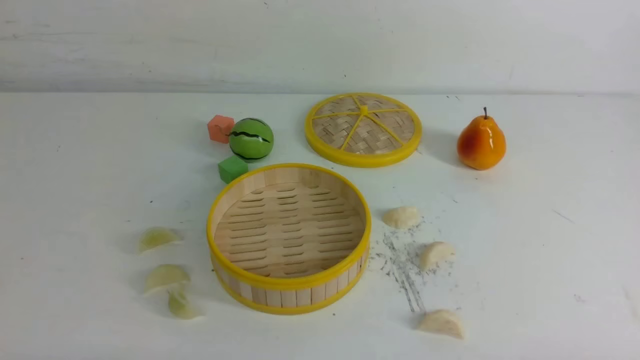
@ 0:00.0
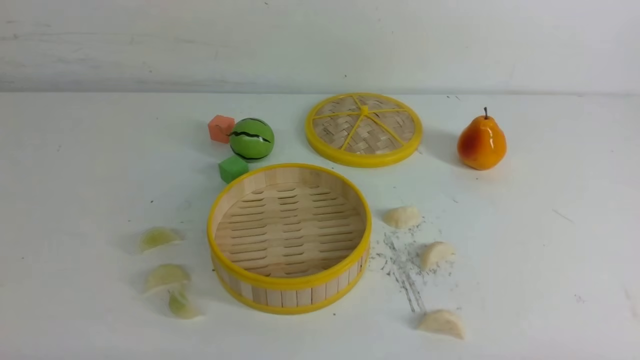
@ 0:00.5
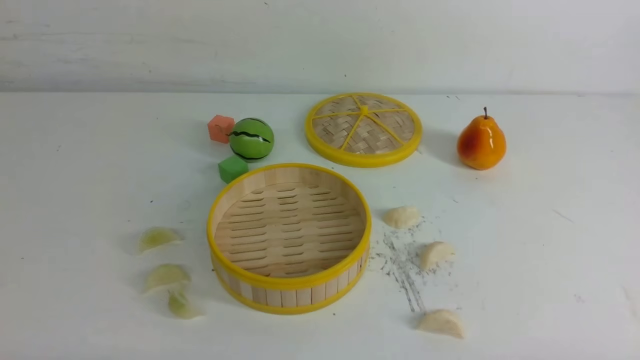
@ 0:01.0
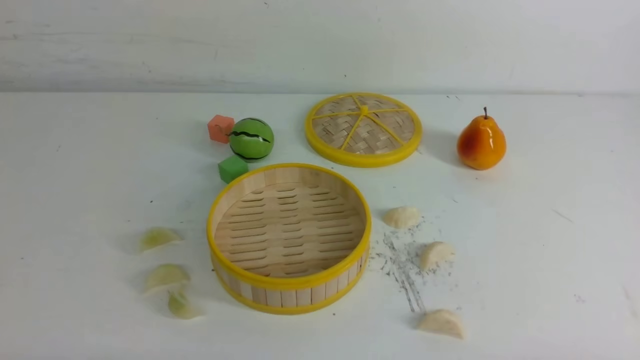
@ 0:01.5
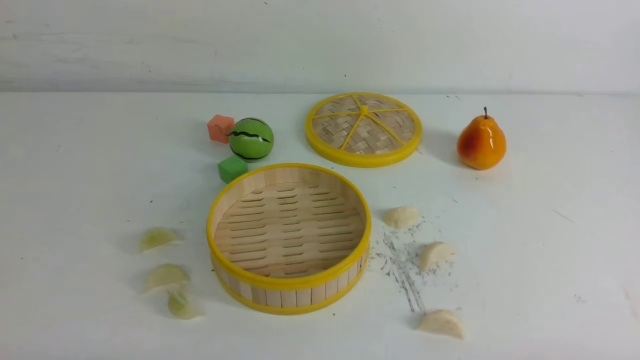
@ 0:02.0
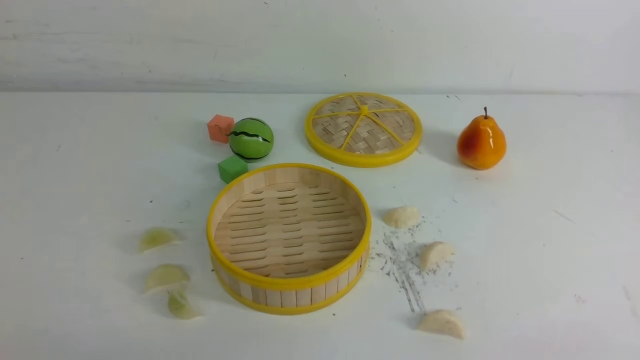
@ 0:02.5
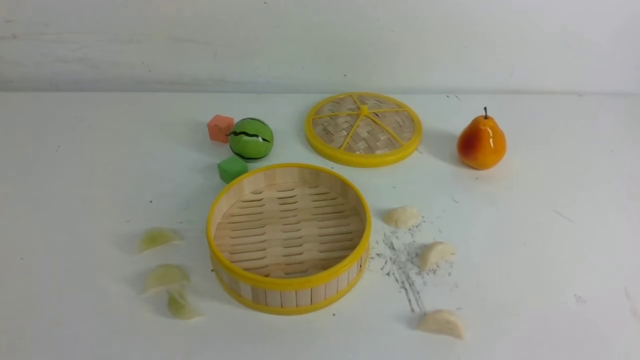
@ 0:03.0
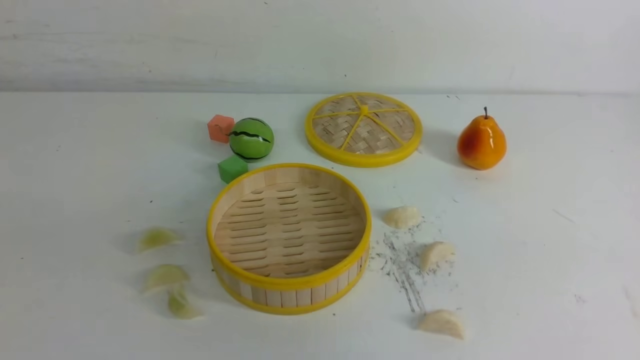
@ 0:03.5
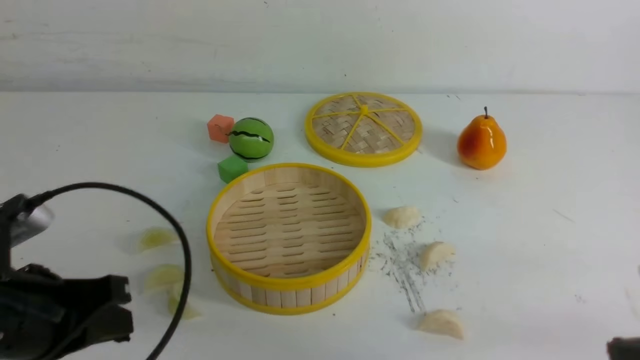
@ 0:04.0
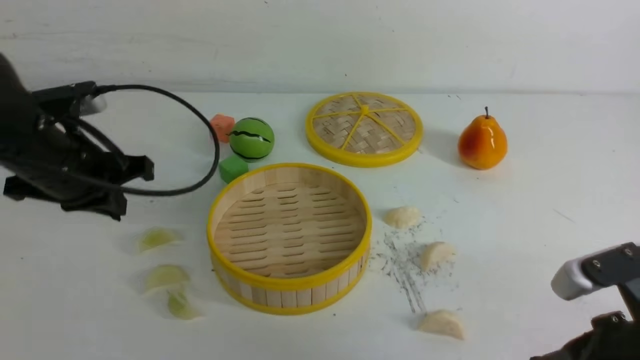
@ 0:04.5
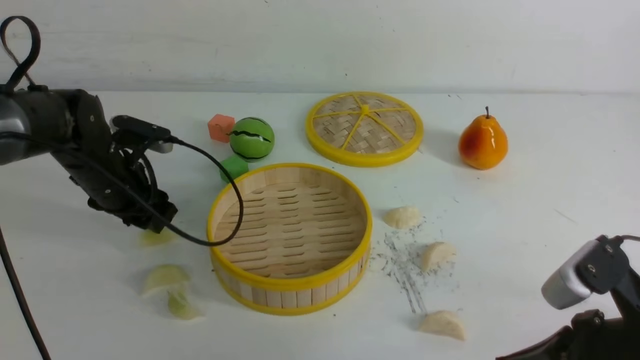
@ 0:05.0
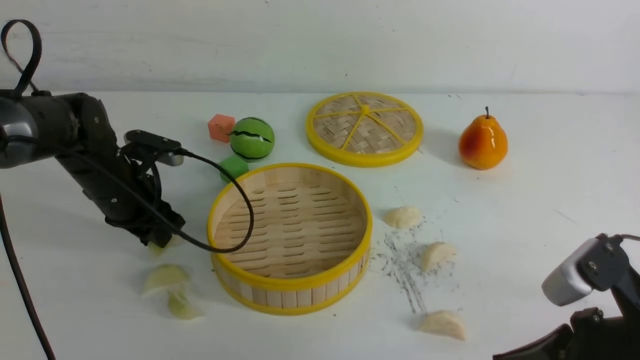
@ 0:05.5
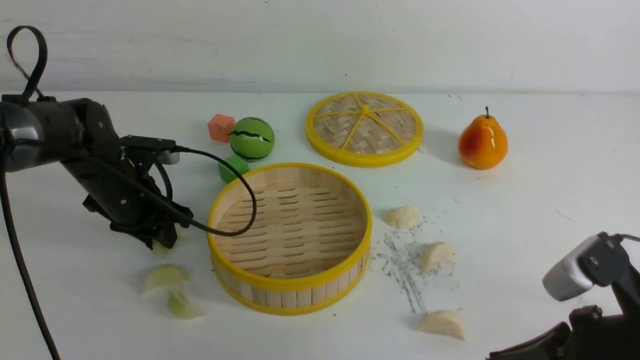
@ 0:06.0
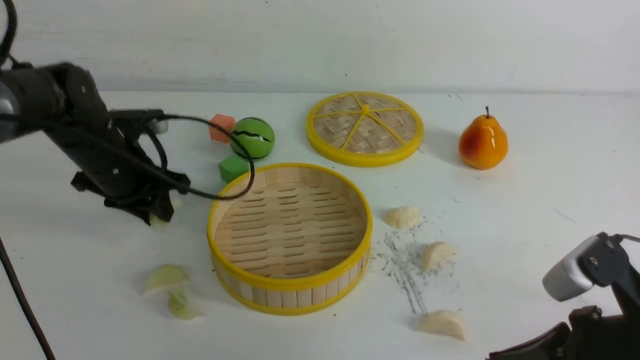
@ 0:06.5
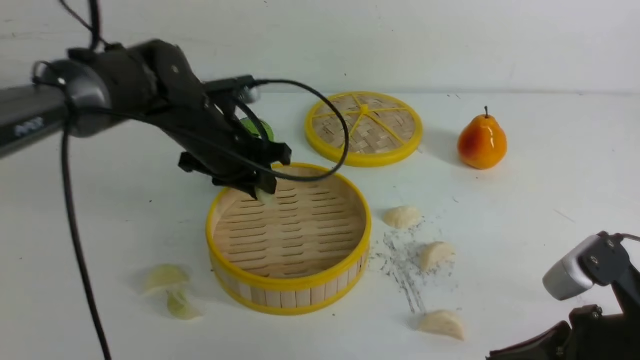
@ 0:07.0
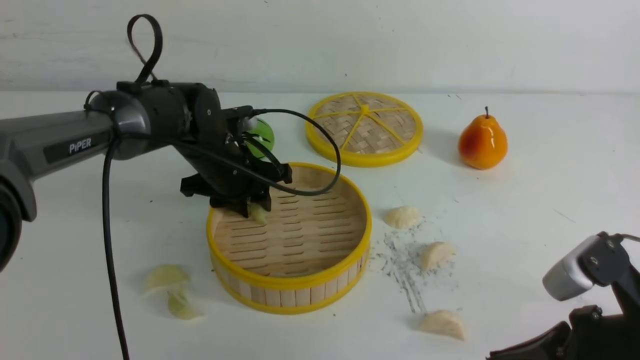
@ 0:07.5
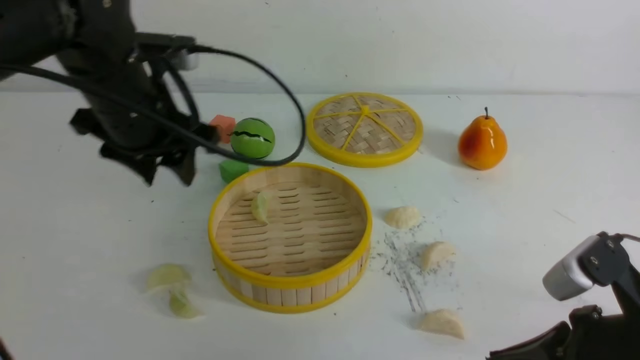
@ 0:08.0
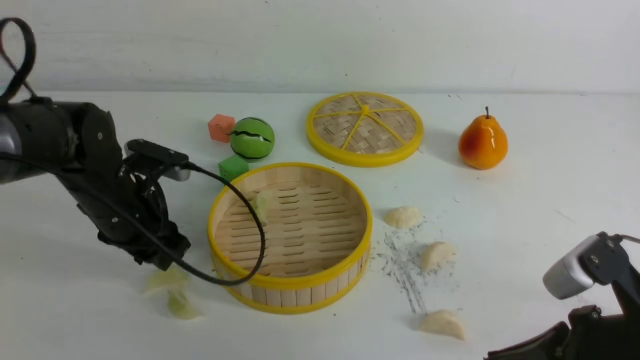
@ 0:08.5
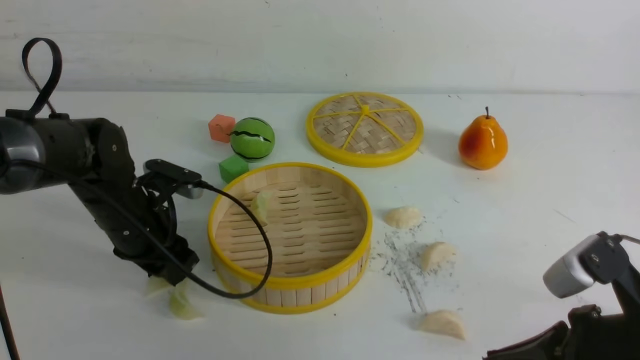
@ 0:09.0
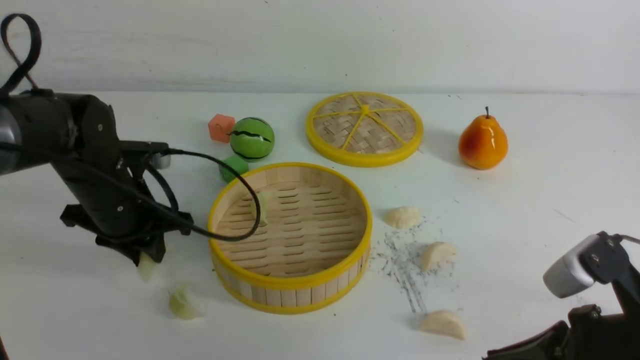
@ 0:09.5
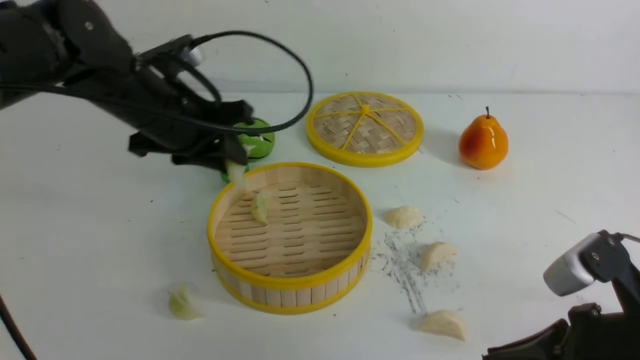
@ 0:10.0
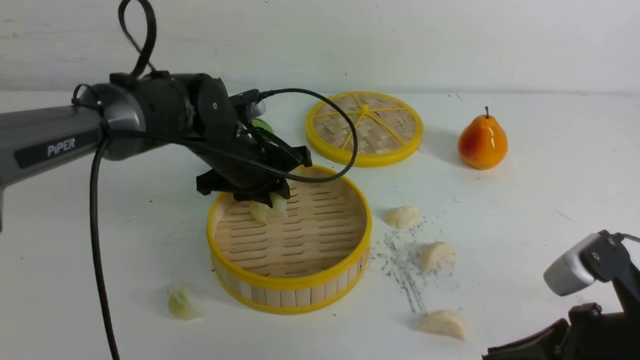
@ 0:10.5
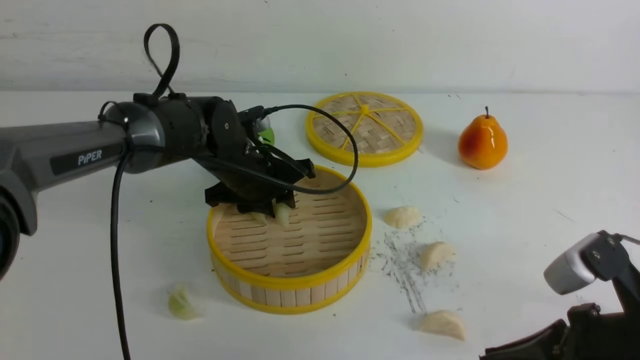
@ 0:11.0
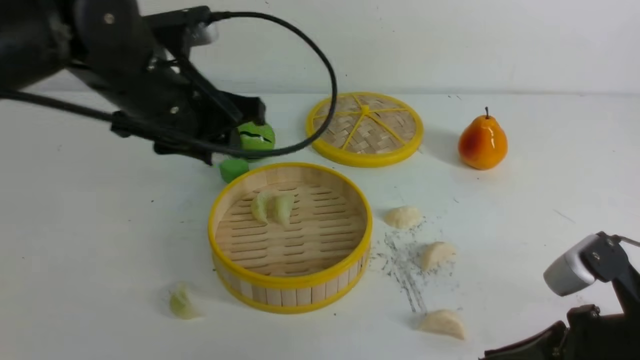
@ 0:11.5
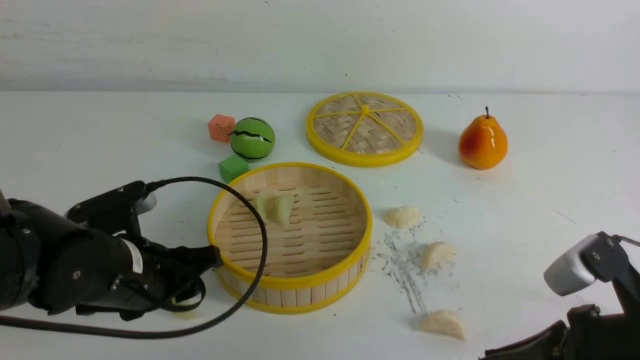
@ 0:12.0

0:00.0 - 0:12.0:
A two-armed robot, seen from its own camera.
Task of the whole recording: put the dumplings into the steamer on the white table.
Step, 0:00.0 - 0:06.0: use the left arm to grab a dumpling.
Step, 0:07.0 - 0:07.5: use the left arm to put the dumpling into the steamer.
Step, 0:08.0 - 0:09.0: use the left arm to grab a dumpling.
Step, 0:09.5 - 0:11.0: use the left arm to put the dumpling into the steamer.
0:02.0 - 0:04.0: Both grippers move forward and upward, approximately 15 cm. The right gripper closes, while the left gripper closes up.
0:04.0 - 0:06.0: The right gripper ends up about 5 cm from where it was. The left gripper is displaced forward and downward by roughly 25 cm, and opens up.
0:06.0 - 0:08.0: The left gripper is displaced upward and to the right by about 15 cm, and opens its fingers.
0:08.0 - 0:10.0: The left gripper reaches some 10 cm downward, then returns, and closes up.
0:10.0 - 0:12.0: The left gripper is displaced backward and downward by about 15 cm, and opens up.

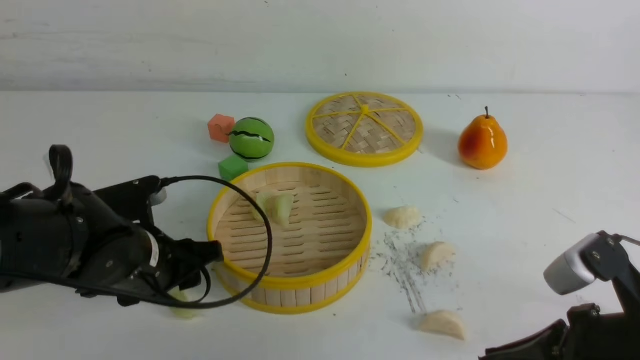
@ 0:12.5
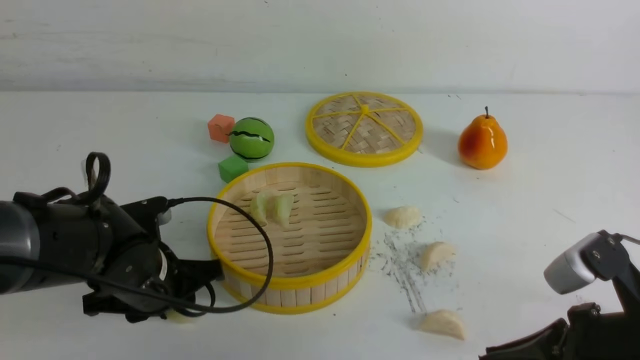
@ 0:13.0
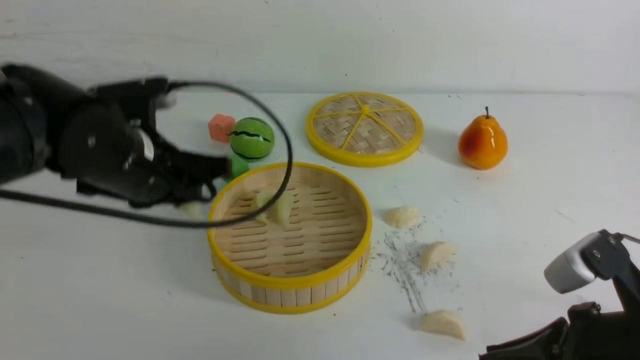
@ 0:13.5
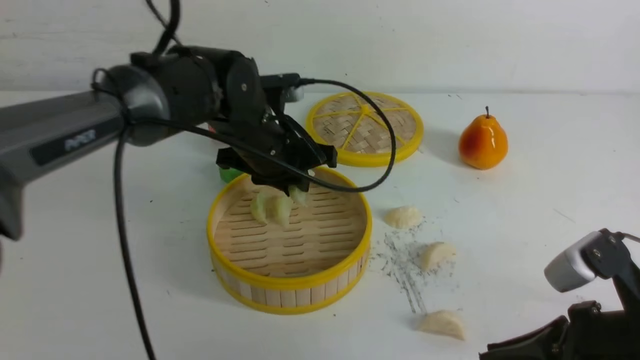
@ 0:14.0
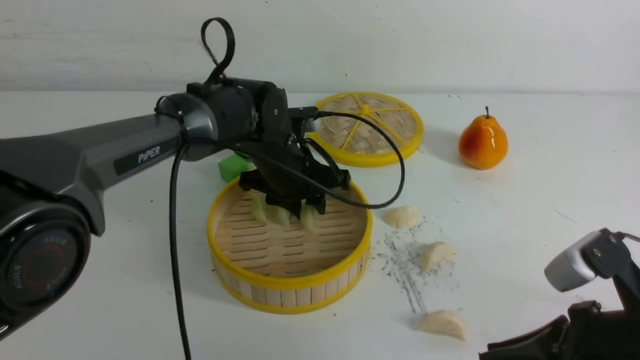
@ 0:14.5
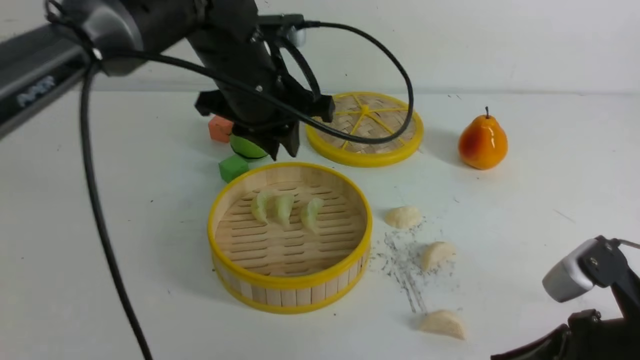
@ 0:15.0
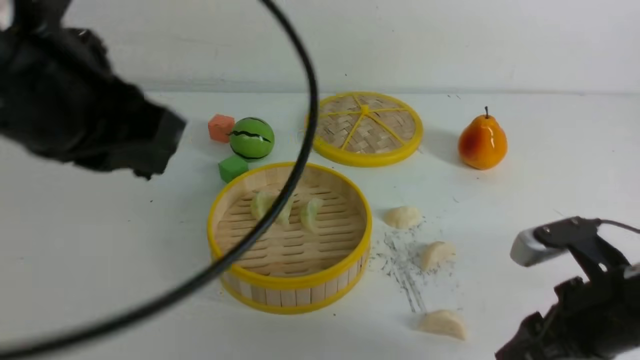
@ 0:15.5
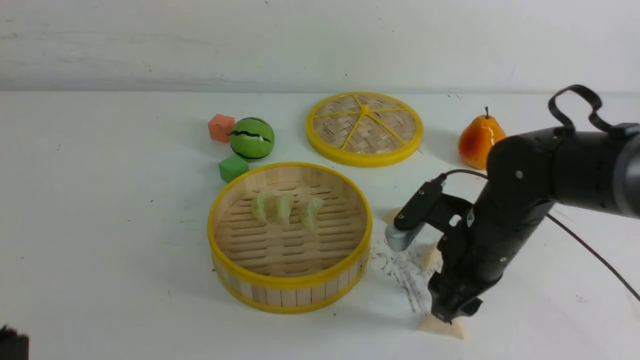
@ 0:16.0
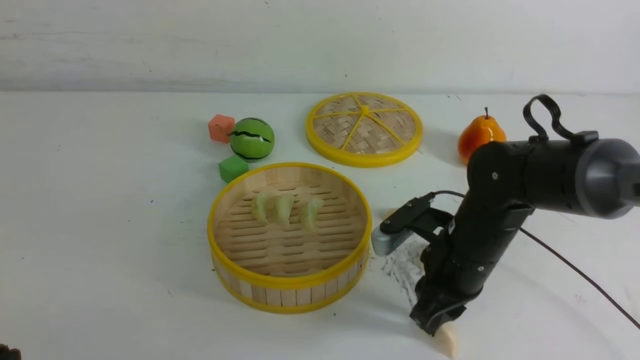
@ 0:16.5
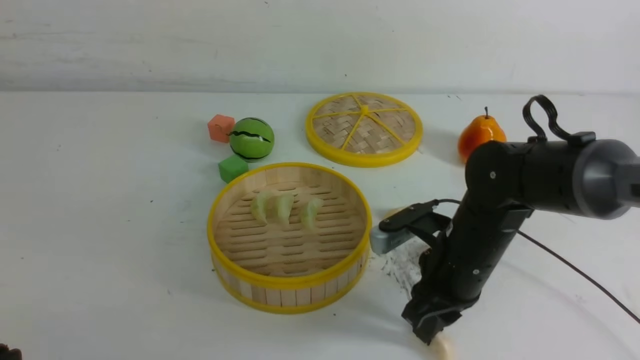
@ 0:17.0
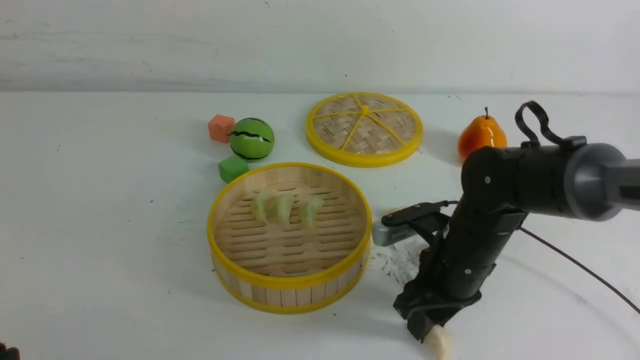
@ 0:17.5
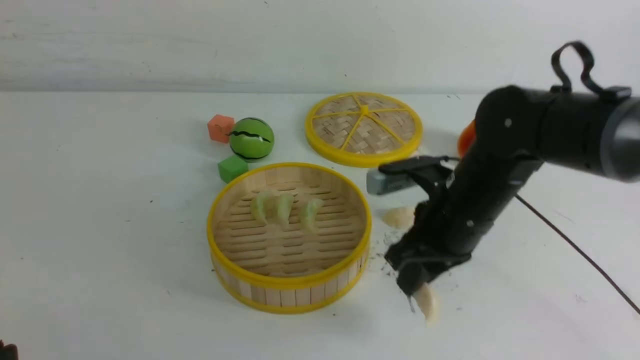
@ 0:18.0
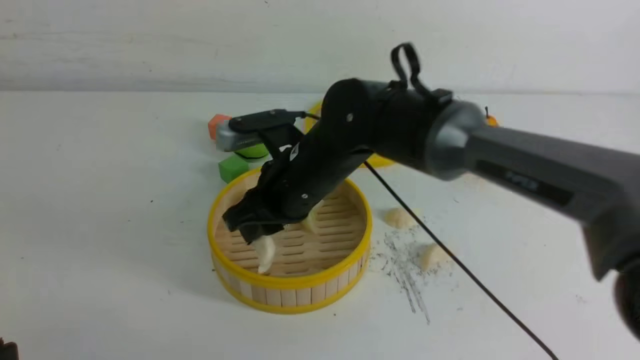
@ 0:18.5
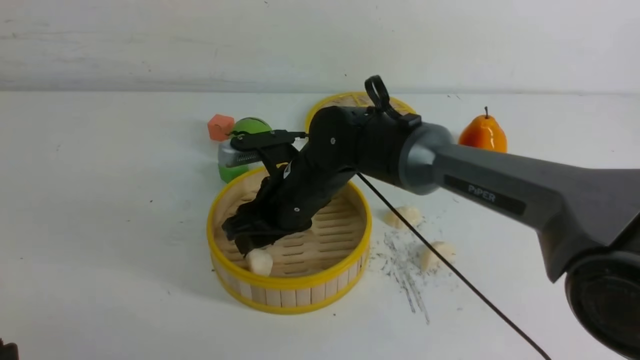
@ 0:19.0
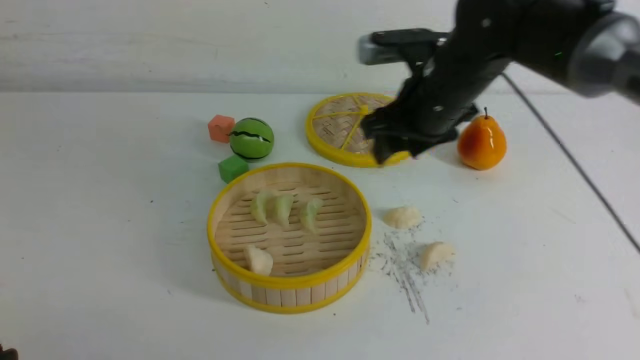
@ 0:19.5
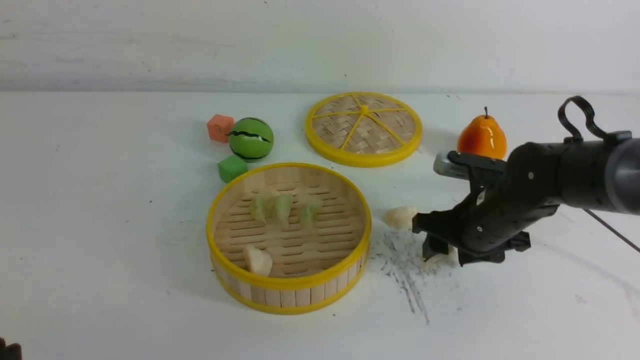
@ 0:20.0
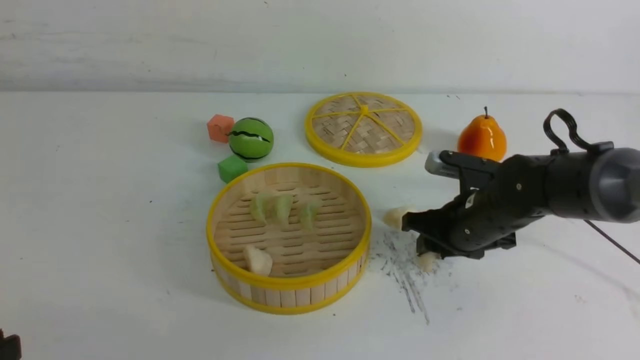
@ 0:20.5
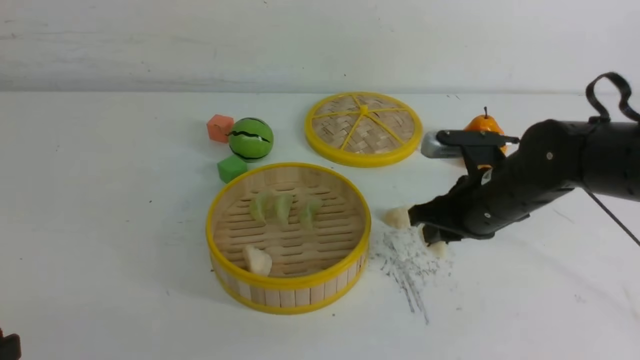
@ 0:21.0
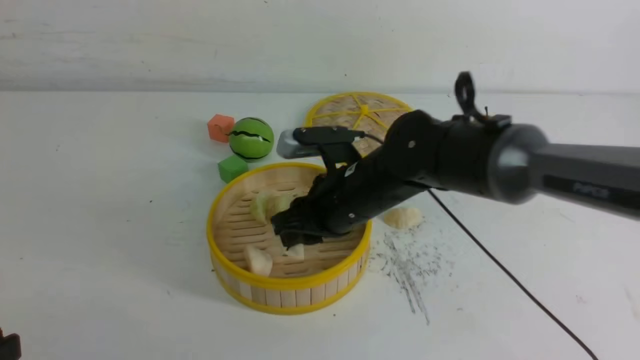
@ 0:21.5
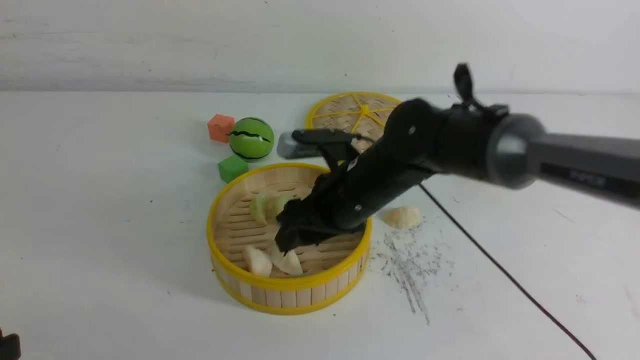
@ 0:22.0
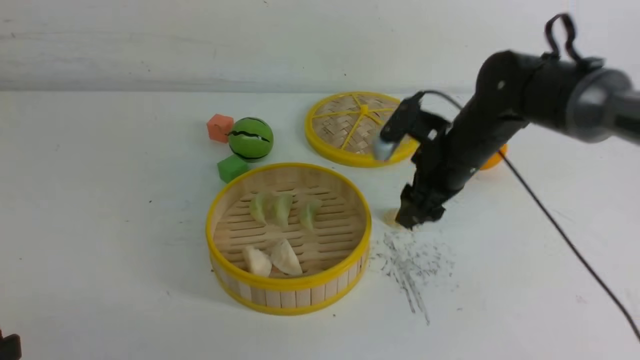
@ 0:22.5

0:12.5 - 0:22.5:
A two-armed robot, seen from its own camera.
Task of the whole recording: put the dumplings into the steamer on the white table.
Step, 0:13.5 - 0:14.5: use the left arm to put the dumpling into the steamer.
Step, 0:15.0 - 0:17.5: use the right arm to grab a dumpling.
Step, 0:18.0 - 0:19.0: use the right arm to put the dumpling into the steamer.
Step, 0:19.5 - 0:20.5: use the right arm to grab a dumpling.
Step, 0:21.0 - 0:21.5: use the right arm to put the dumpling into the steamer.
0:12.5 - 0:14.5: The left gripper heads forward and to the right, covering roughly 20 cm.
0:14.5 - 0:16.5: The left gripper goes some 40 cm backward and to the left, and closes. The right gripper is displaced forward and to the left by approximately 20 cm, and opens, then closes again.
0:16.5 - 0:18.5: The right gripper is displaced to the left and upward by some 15 cm.
0:18.5 - 0:20.5: The right gripper travels to the right and downward by approximately 20 cm, and opens, then closes again.
0:20.5 - 0:22.5: The right gripper is displaced upward by approximately 5 cm, moves about 15 cm to the left and comes back, and opens.
